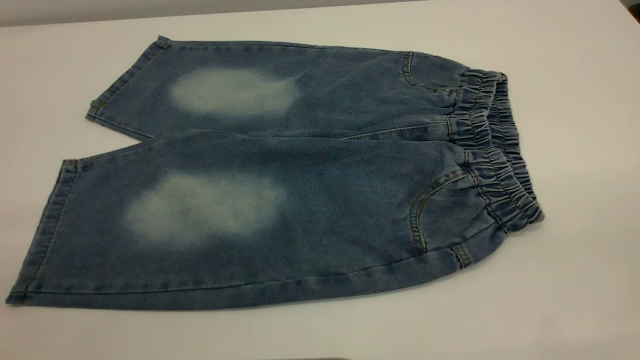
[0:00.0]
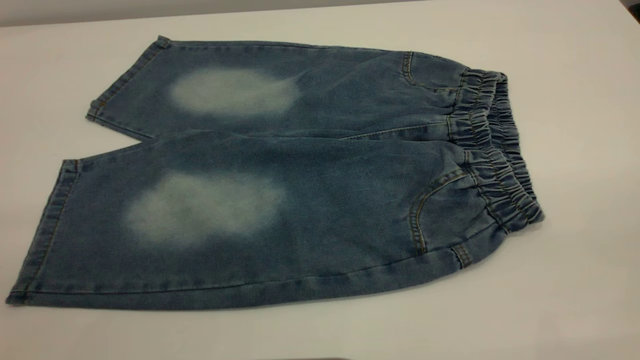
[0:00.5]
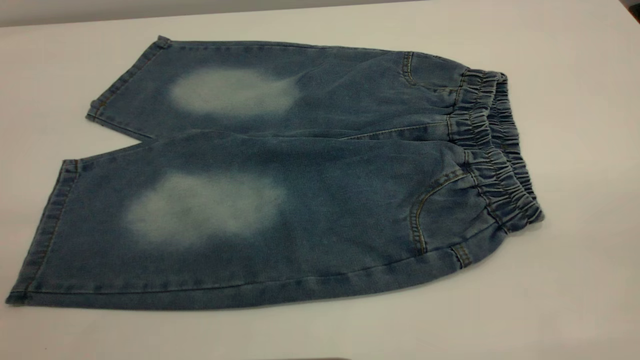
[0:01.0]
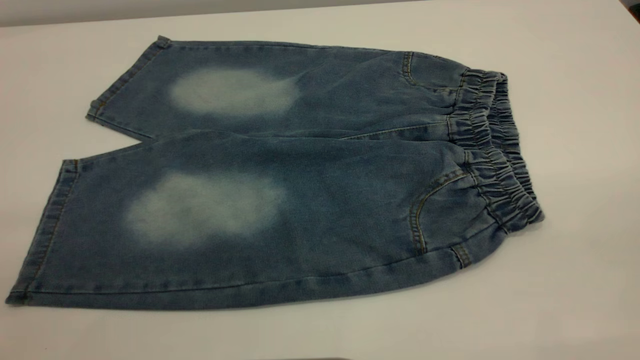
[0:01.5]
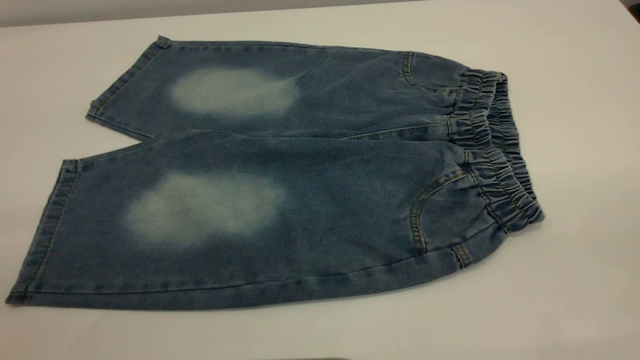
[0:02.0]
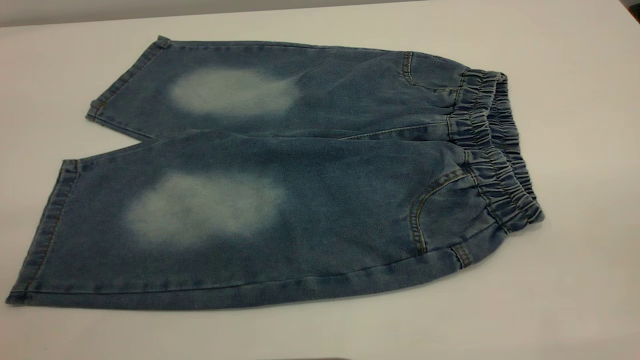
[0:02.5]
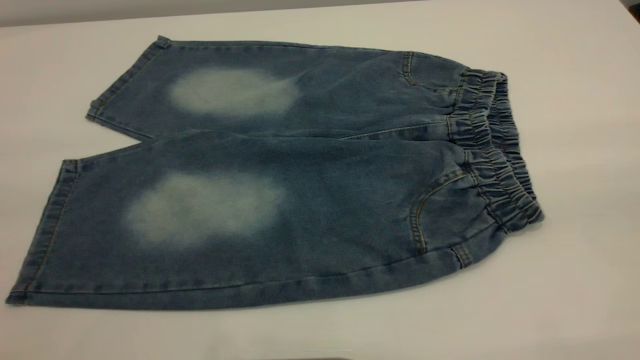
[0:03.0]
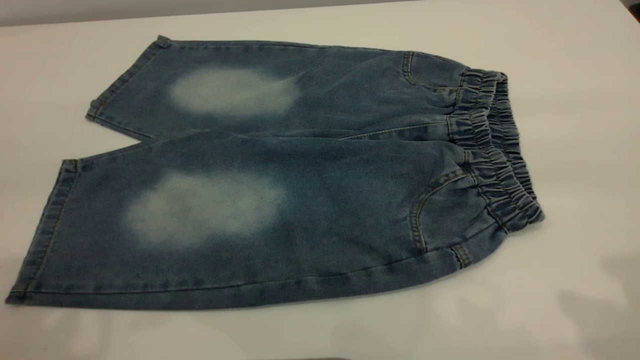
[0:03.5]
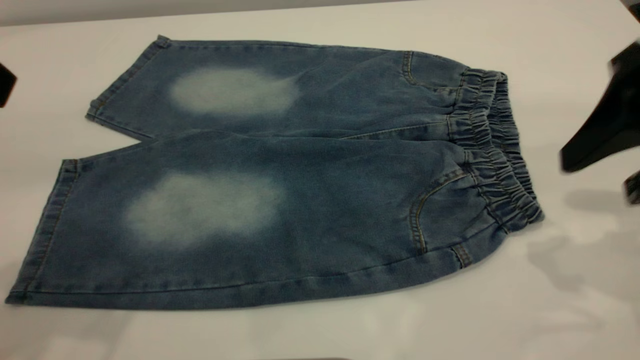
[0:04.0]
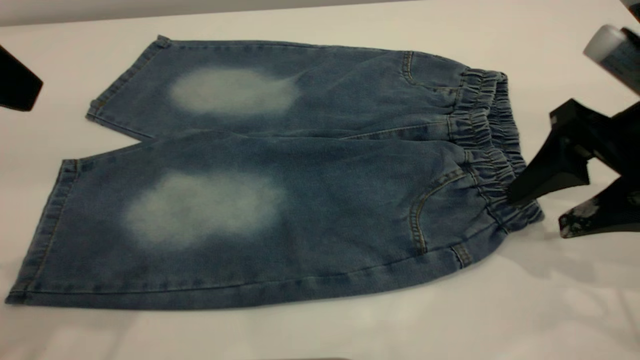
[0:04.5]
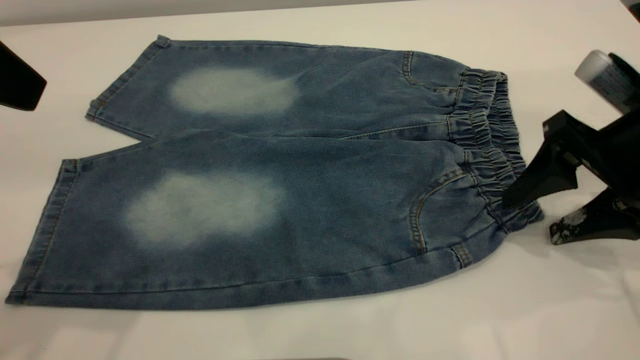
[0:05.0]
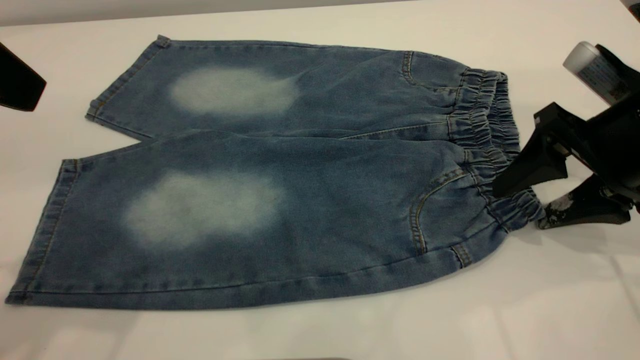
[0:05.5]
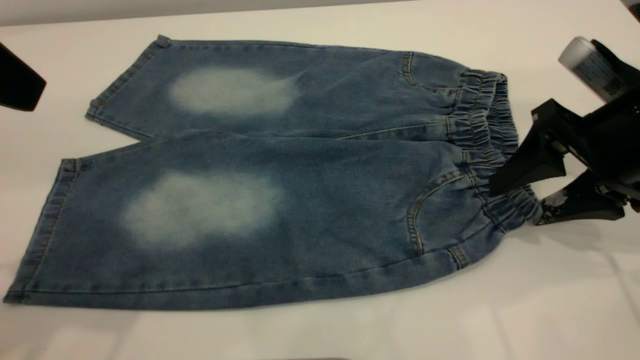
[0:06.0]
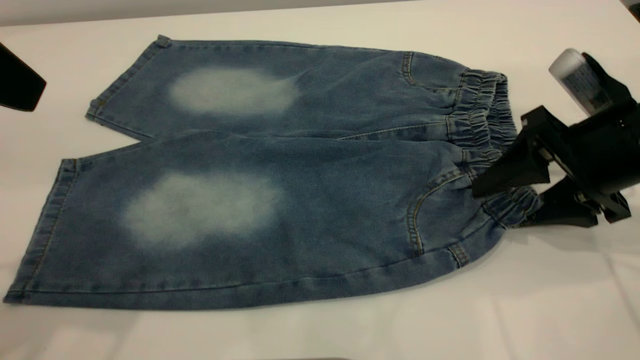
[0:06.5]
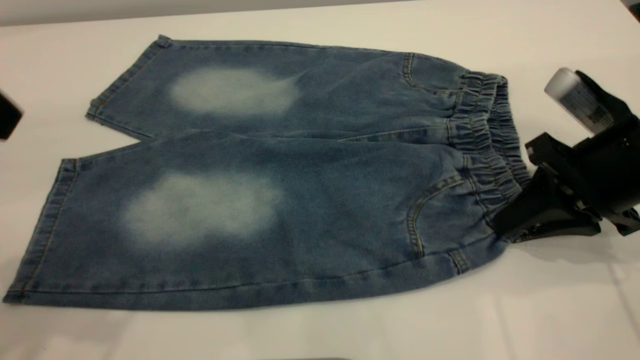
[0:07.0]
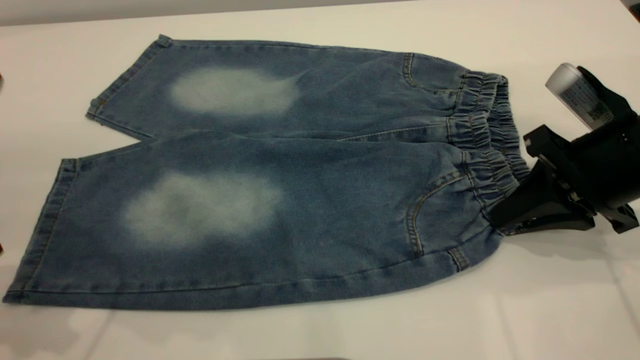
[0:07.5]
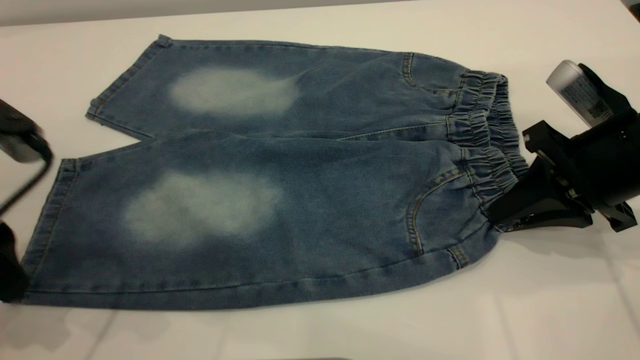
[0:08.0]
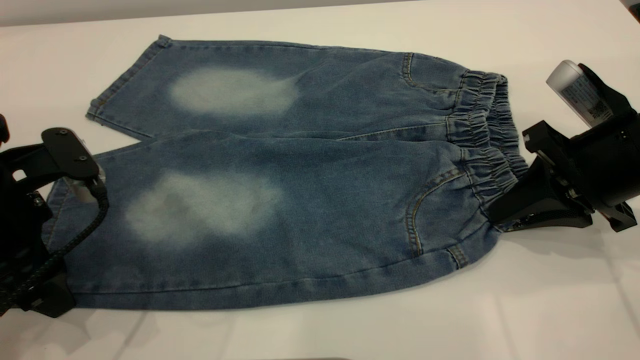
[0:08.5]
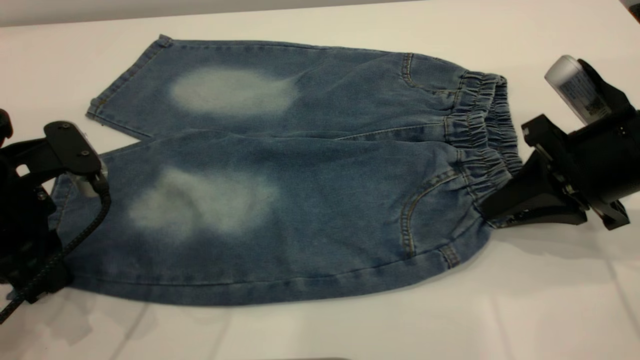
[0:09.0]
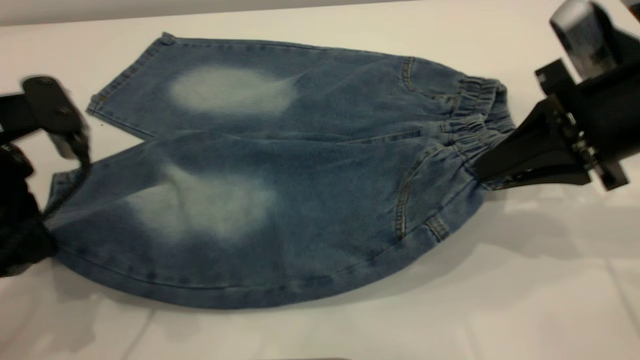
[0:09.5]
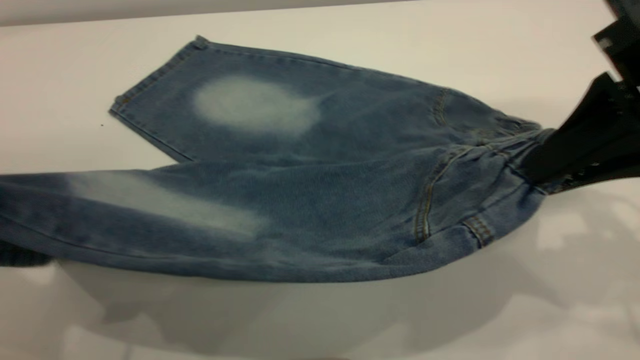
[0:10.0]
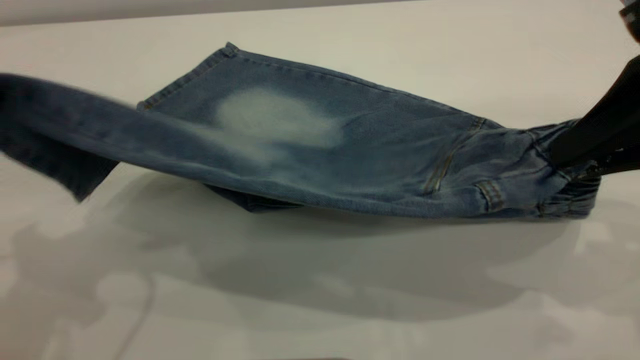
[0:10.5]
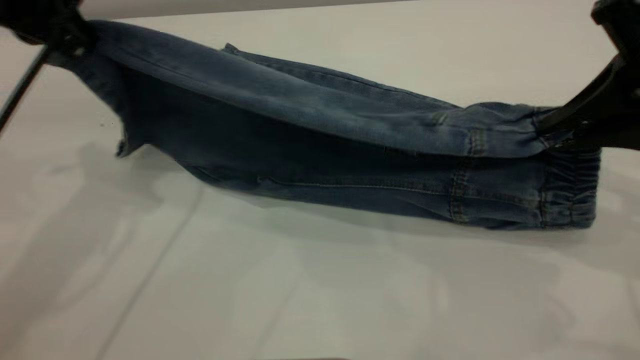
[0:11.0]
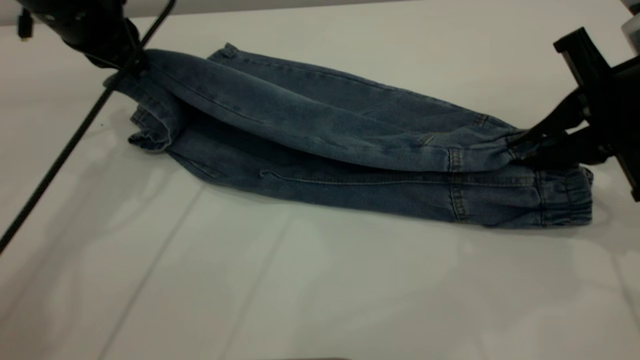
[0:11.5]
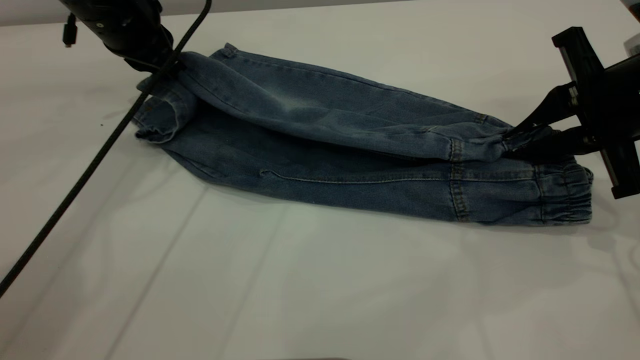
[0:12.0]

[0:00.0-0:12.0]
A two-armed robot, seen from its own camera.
0:00.0 to 0:02.0: The two grippers keep their place.
0:02.0 to 0:04.0: The right gripper moves forward and downward, roughly 25 cm.
0:04.0 to 0:06.0: The right gripper moves downward and forward, some 10 cm.
0:06.0 to 0:08.0: The left gripper shifts roughly 15 cm downward; the right gripper closes up.
0:08.0 to 0:10.0: The two grippers go about 10 cm upward. The left gripper closes.
0:10.0 to 0:12.0: The right gripper moves downward and forward, roughly 10 cm. Meanwhile the left gripper is displaced forward by about 25 cm.

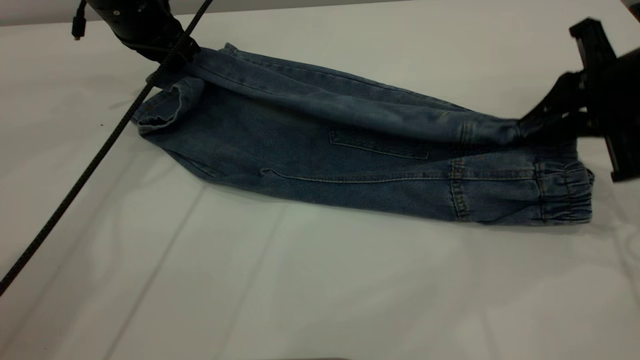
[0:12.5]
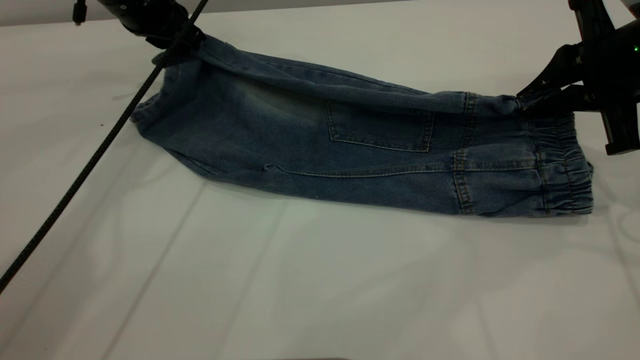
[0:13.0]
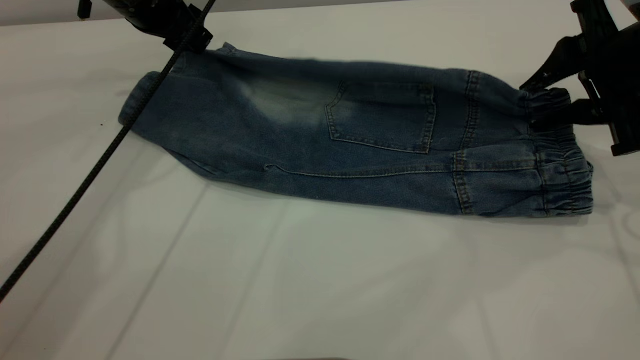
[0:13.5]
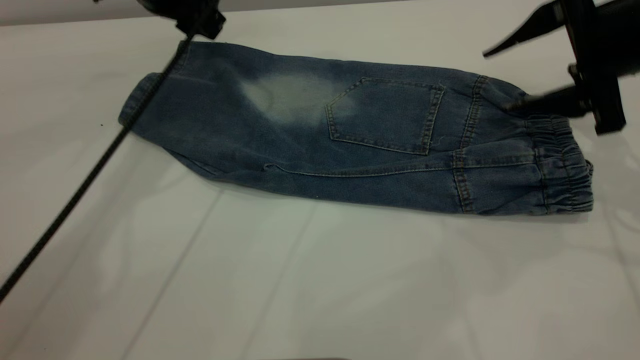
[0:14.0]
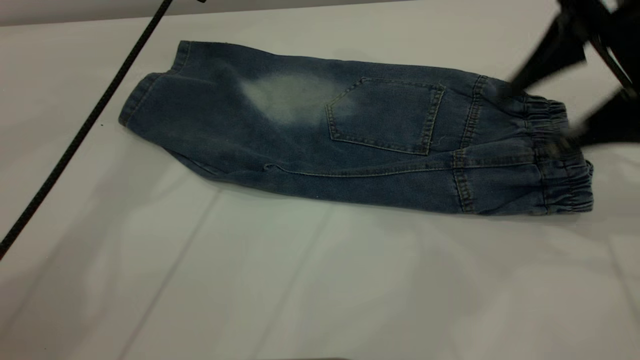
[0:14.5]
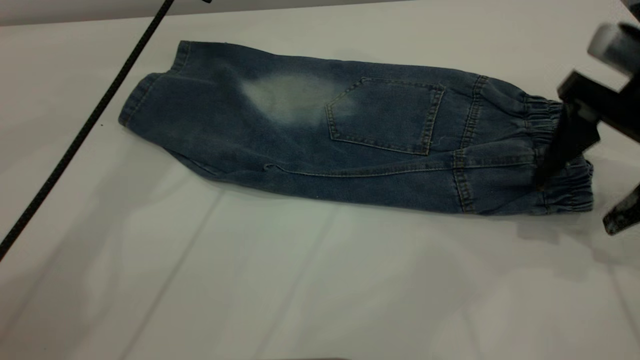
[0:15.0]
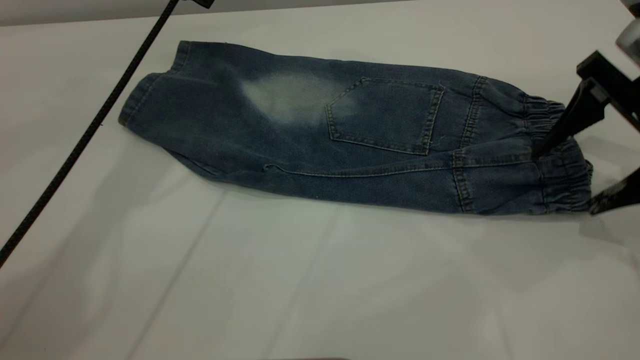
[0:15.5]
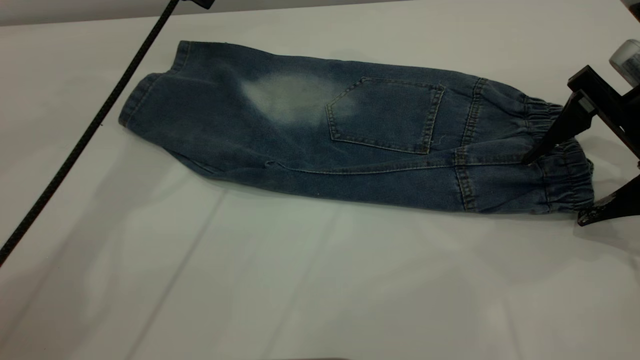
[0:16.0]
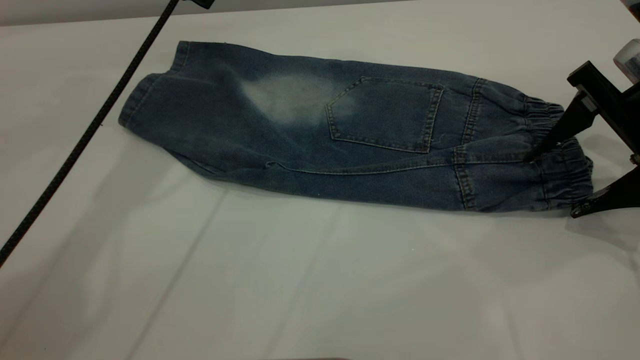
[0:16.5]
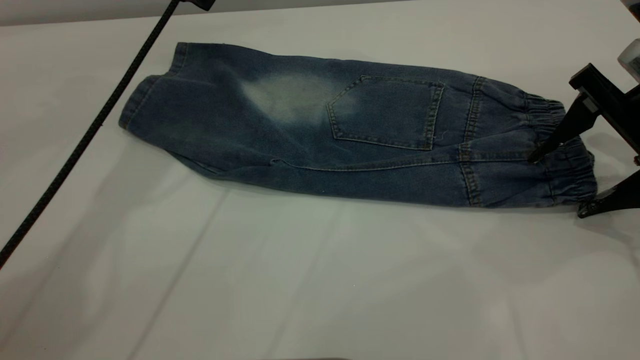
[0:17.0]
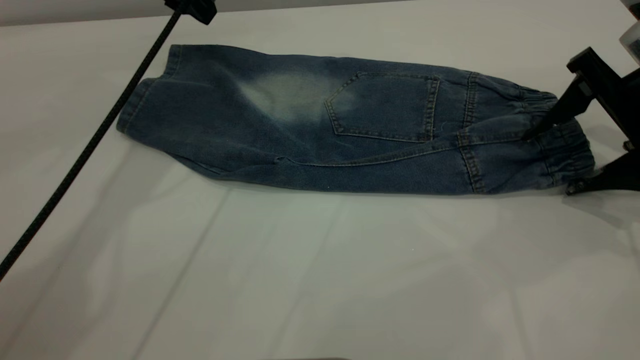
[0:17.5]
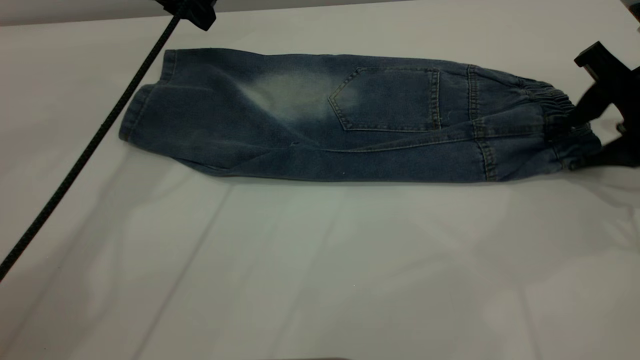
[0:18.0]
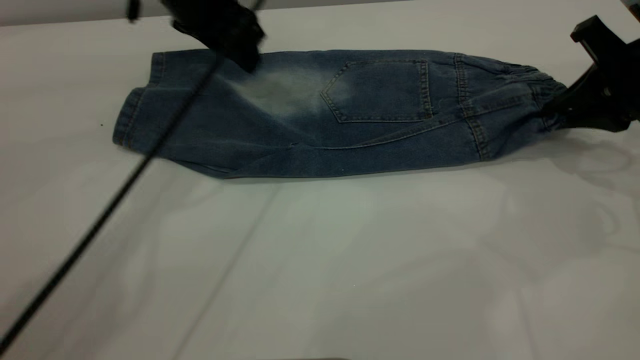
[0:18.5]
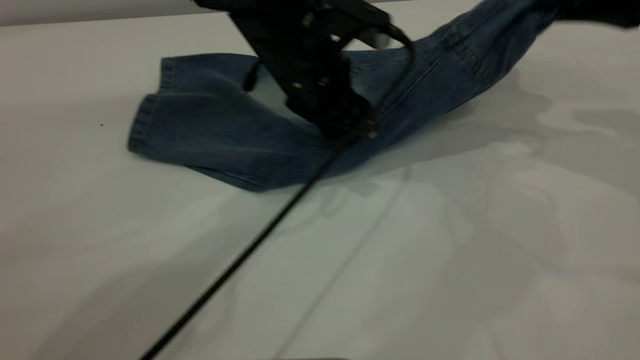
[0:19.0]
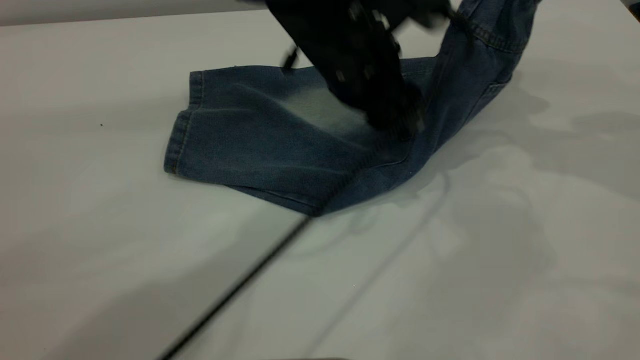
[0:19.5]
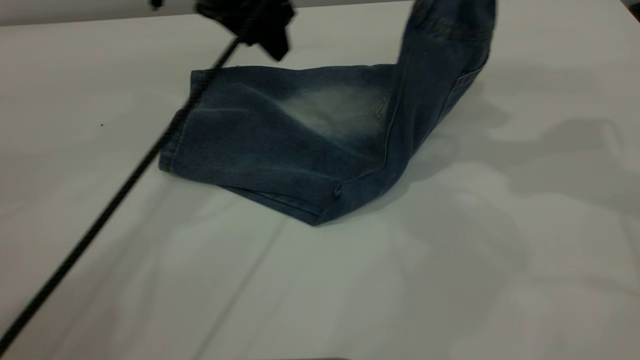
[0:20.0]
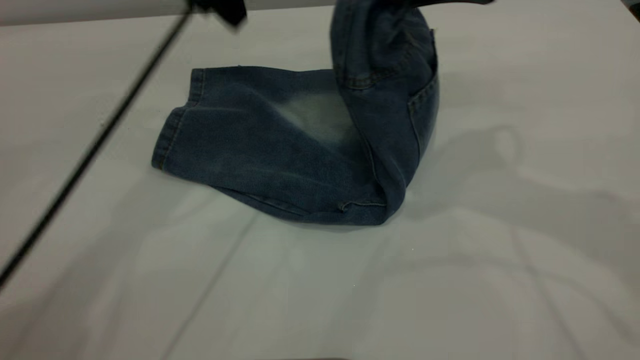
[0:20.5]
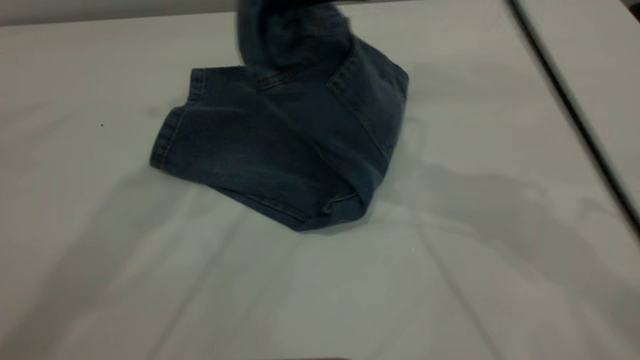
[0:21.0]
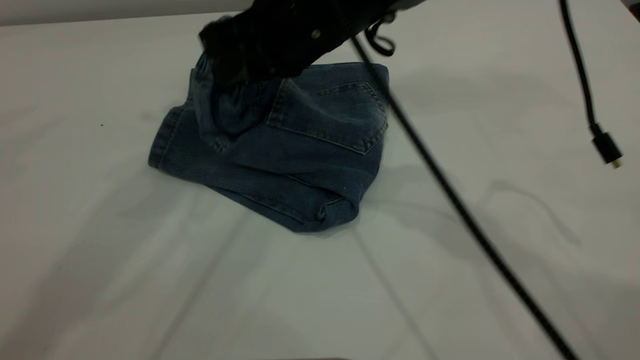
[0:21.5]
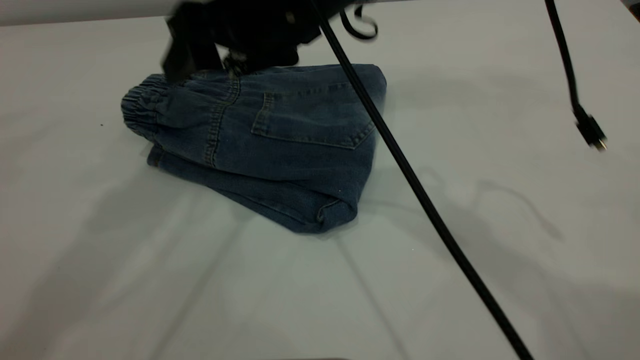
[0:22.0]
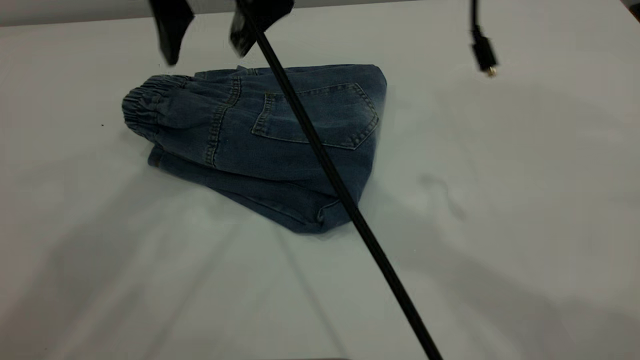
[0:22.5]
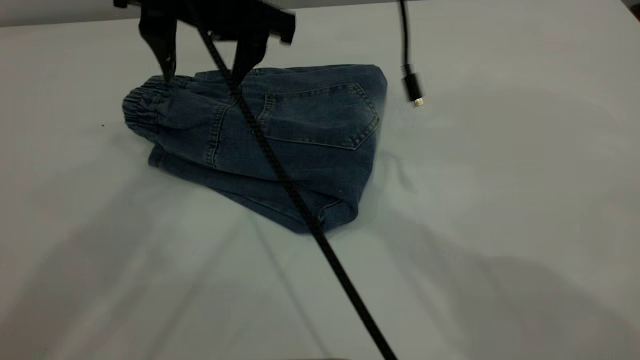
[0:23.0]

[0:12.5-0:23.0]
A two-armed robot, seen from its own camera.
Step, 0:14.5 to 0:22.5: Fold your pants from right to left.
0:12.5 to 0:14.5: The left gripper shifts roughly 5 cm upward, and opens its fingers. Meanwhile the right gripper shifts by roughly 5 cm, and opens its fingers.
0:14.5 to 0:16.5: The right gripper goes roughly 5 cm downward.
0:16.5 to 0:19.0: The left gripper travels to the right, downward and backward by roughly 20 cm. Meanwhile the right gripper moves upward, roughly 10 cm, and closes its fingers.
0:19.0 to 0:21.0: The left gripper heads upward and to the left, covering approximately 30 cm. The right gripper shifts some 25 cm to the left.
0:21.0 to 0:23.0: The right gripper is displaced to the left by about 15 cm, and opens up; the left gripper goes roughly 10 cm upward and backward.
